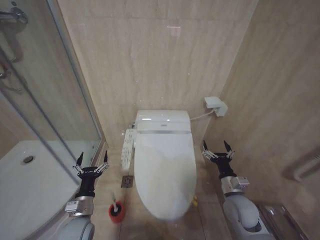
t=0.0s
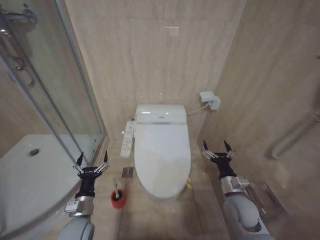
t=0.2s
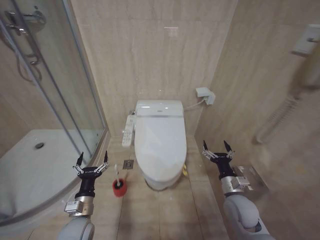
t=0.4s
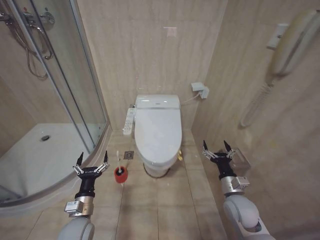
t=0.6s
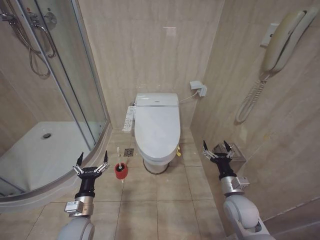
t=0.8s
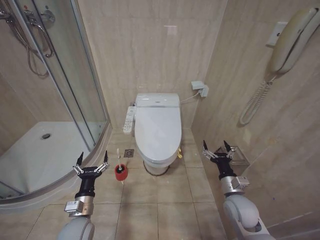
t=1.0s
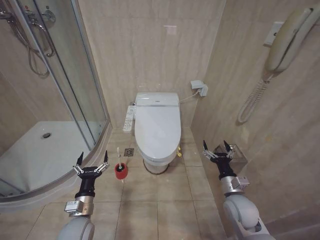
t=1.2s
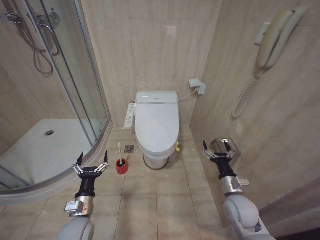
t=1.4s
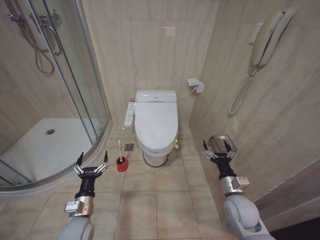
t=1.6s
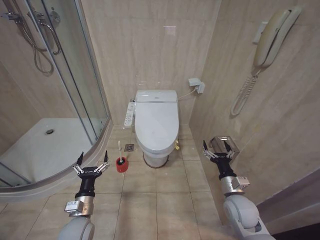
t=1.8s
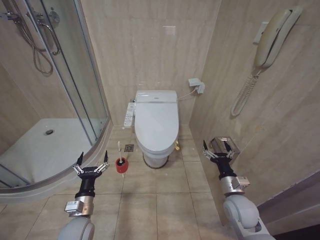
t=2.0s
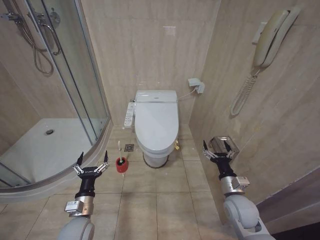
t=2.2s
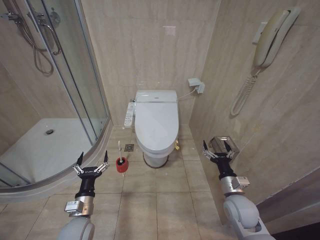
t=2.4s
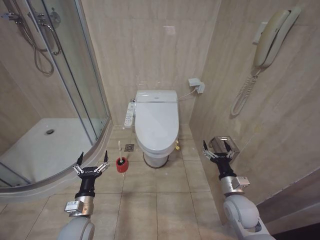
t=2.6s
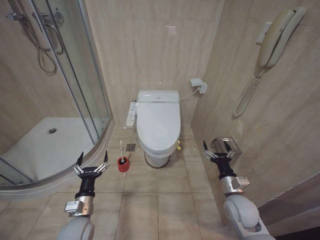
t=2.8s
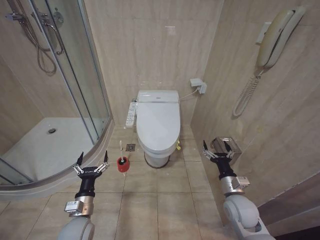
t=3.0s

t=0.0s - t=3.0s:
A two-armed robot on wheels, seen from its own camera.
Task of the whole recording: Open the toilet lid, clean the toilet bowl with a toilet brush, close the toilet lid, and flush.
t=1.6s - t=3.0s: The two grippers keep their place.

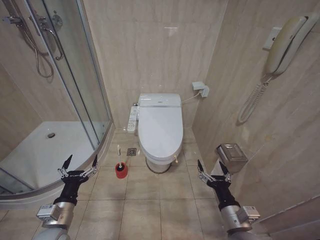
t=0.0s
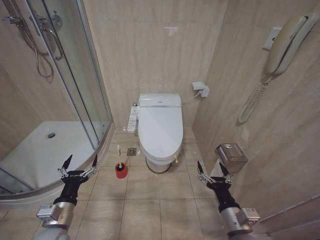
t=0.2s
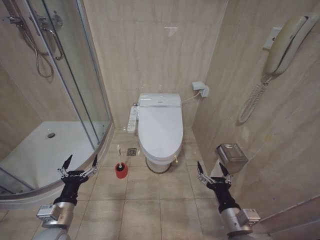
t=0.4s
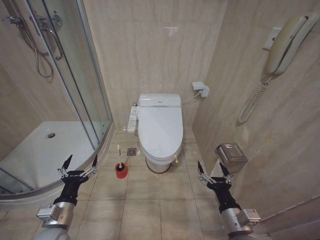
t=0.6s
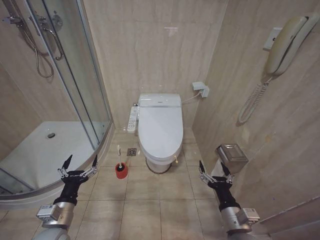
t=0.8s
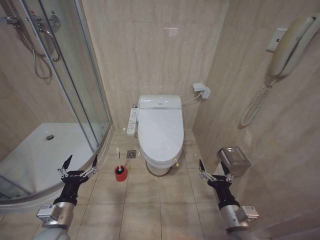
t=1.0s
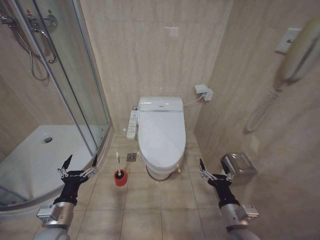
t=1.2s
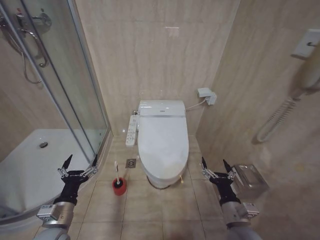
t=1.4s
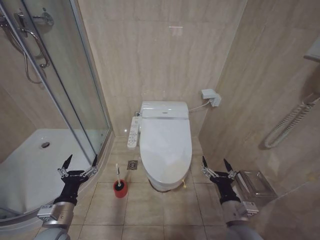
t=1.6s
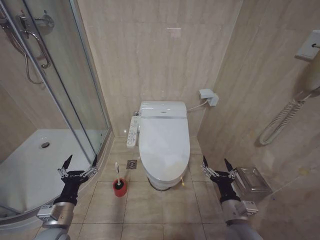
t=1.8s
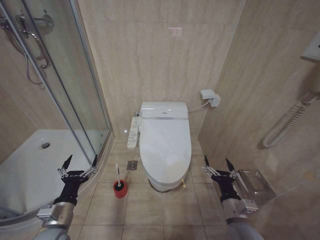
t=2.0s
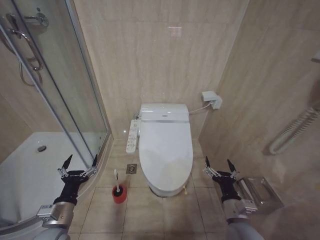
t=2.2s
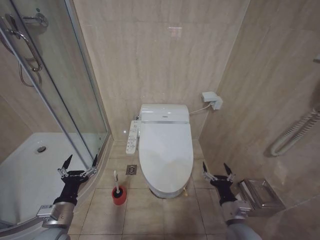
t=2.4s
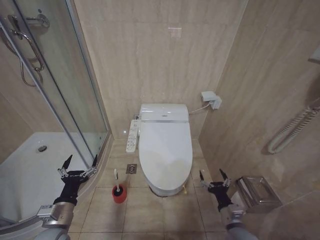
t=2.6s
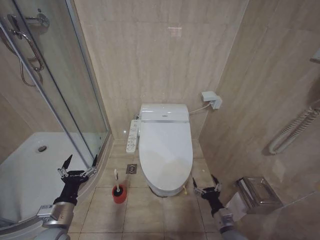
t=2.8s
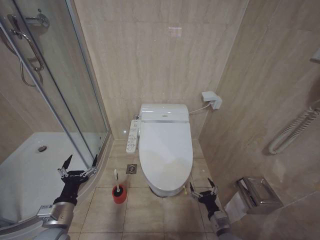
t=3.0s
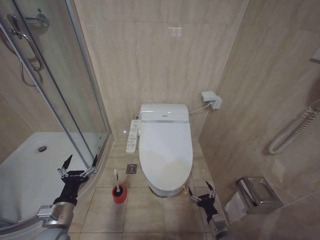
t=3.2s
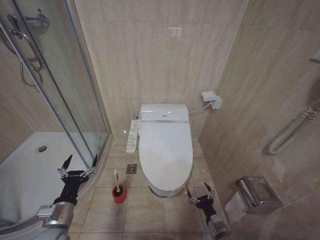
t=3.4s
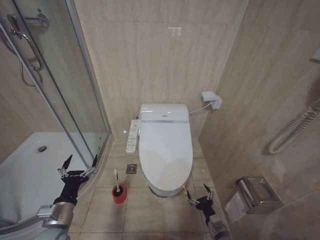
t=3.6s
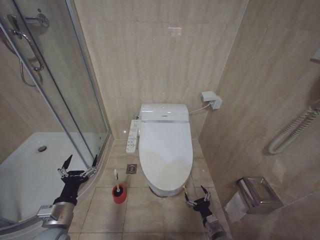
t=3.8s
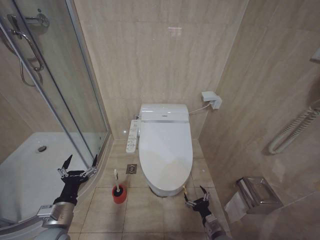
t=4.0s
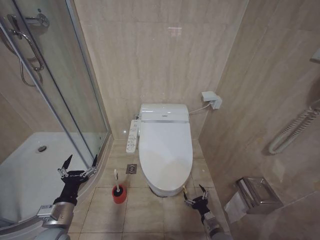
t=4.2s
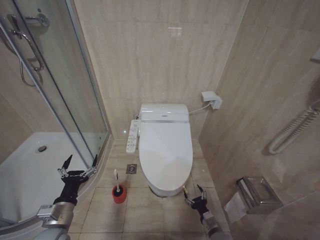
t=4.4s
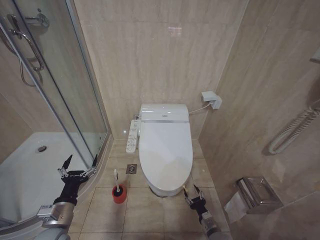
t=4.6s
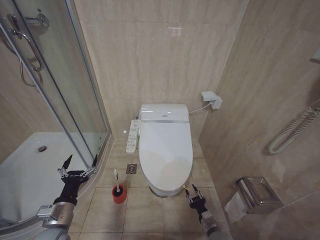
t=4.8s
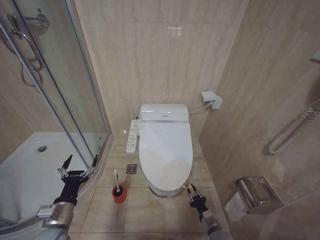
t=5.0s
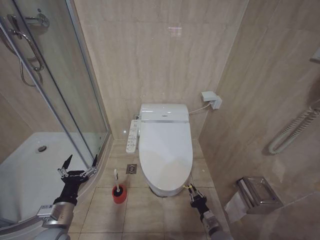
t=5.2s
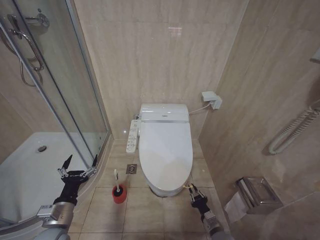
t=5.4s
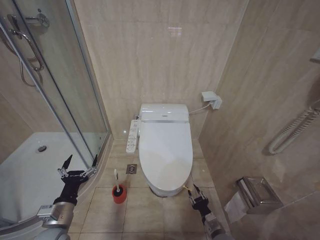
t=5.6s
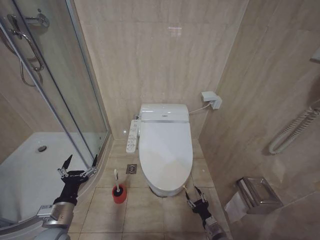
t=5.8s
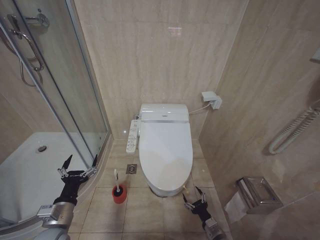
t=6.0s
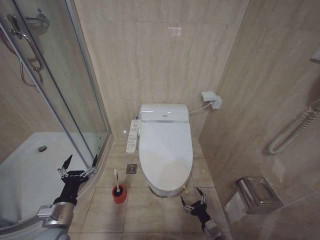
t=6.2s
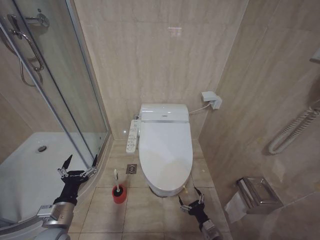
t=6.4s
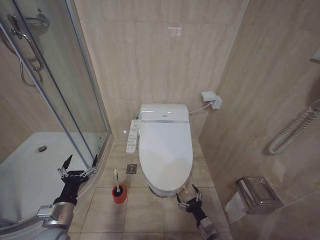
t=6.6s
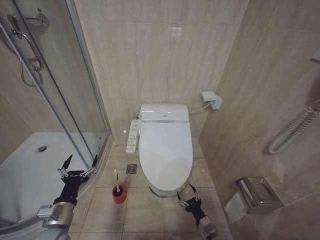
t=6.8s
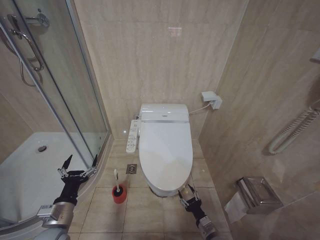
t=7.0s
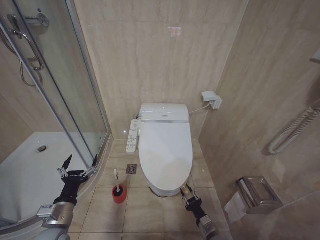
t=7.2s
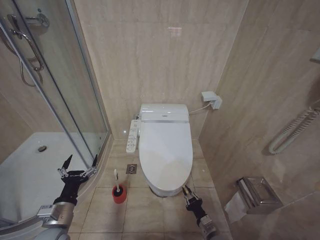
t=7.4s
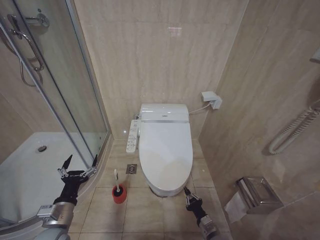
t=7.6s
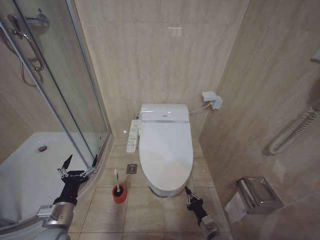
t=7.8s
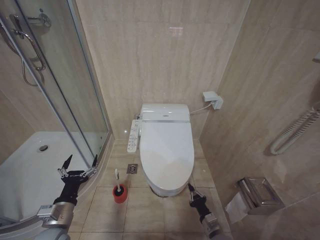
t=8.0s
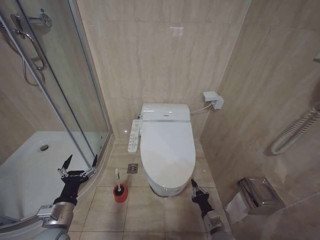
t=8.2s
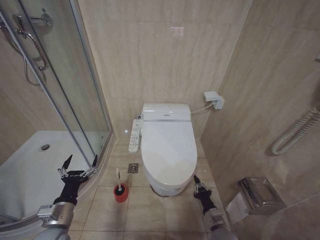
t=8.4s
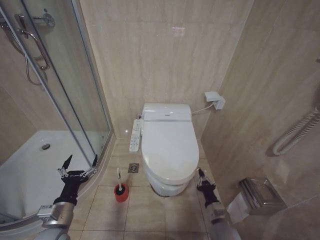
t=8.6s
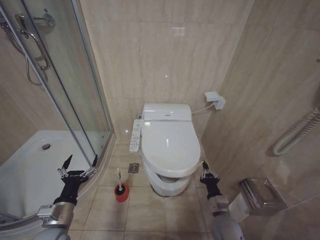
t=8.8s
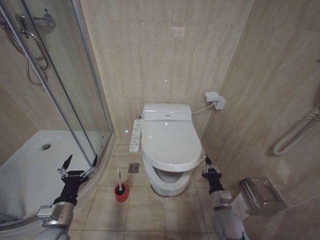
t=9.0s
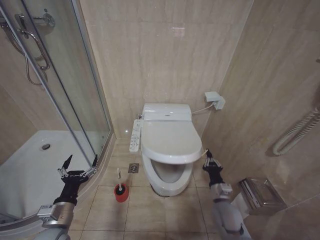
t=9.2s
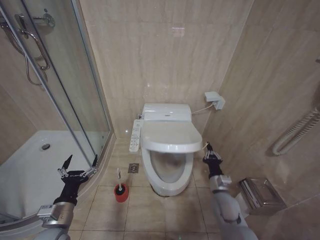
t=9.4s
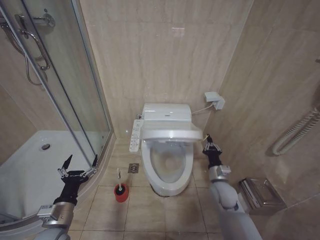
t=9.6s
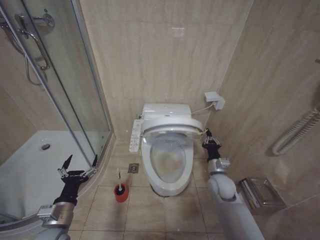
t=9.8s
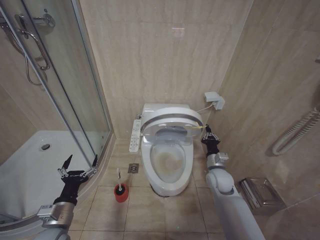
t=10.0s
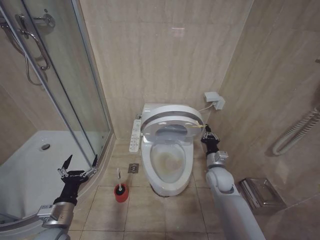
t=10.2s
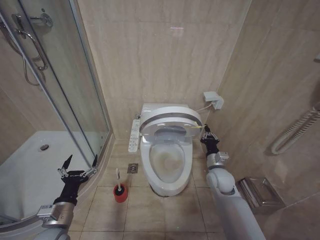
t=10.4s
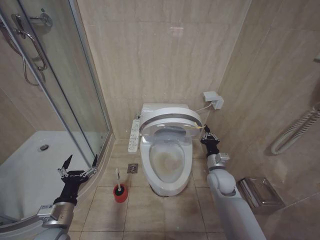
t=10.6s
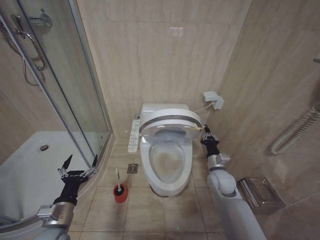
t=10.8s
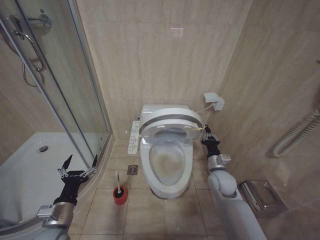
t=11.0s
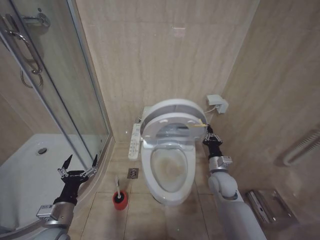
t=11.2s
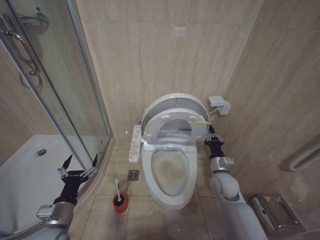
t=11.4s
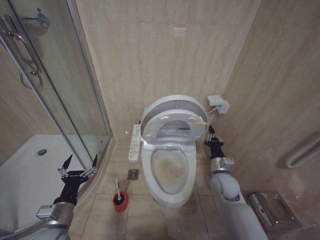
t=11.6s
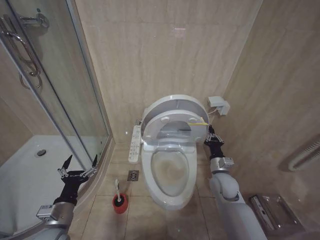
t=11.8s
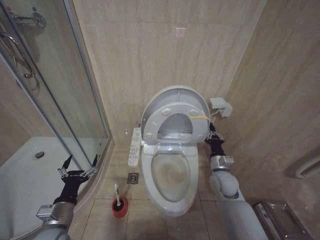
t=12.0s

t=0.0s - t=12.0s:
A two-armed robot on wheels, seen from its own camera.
Task of the whole recording: Open the toilet lid, clean the toilet bowl with a toilet brush, close the toilet lid, and flush.
t=1.6s - t=3.0s: The right gripper travels downward by some 15 cm.
t=3.0s - t=4.4s: The right gripper is displaced downward by approximately 5 cm.
t=7.6s - t=9.0s: The right gripper shifts approximately 10 cm upward.
t=9.0s - t=10.4s: The right gripper goes some 15 cm forward and upward.
t=10.4s - t=12.0s: The grippers move only a little.

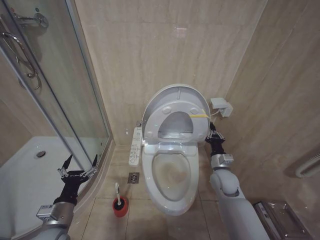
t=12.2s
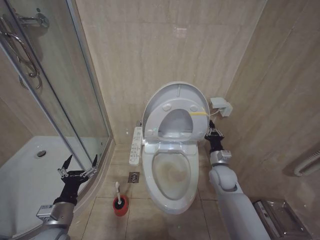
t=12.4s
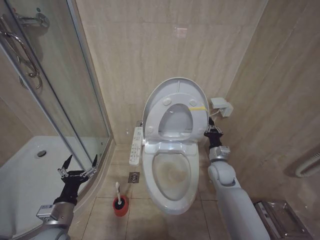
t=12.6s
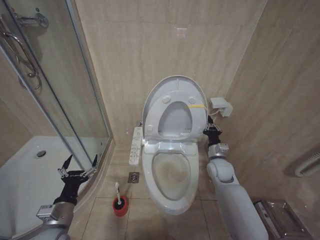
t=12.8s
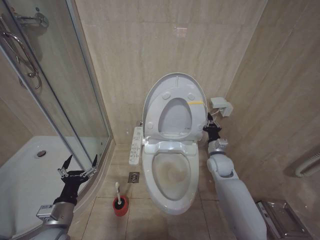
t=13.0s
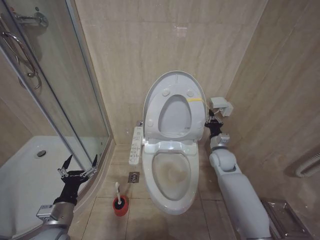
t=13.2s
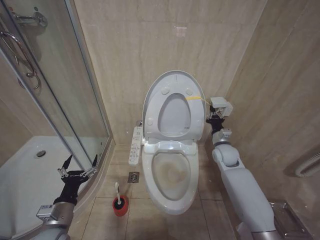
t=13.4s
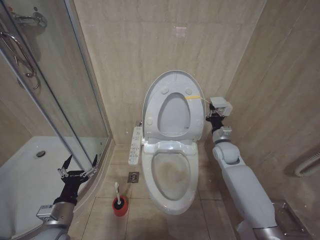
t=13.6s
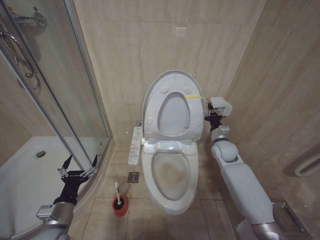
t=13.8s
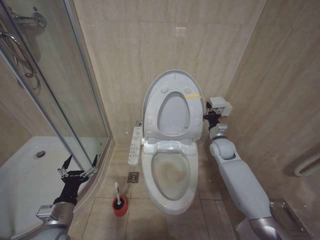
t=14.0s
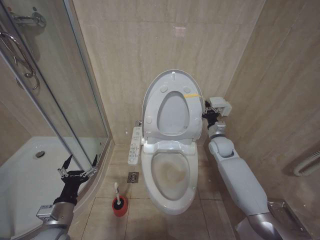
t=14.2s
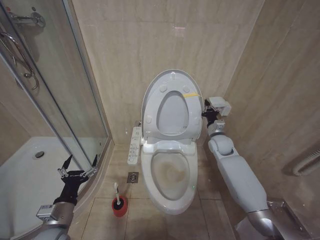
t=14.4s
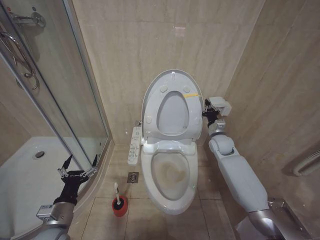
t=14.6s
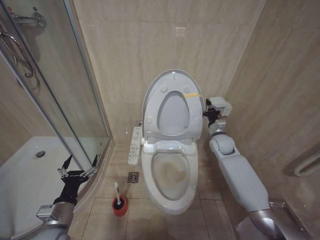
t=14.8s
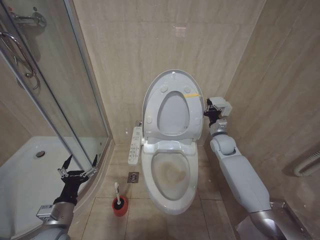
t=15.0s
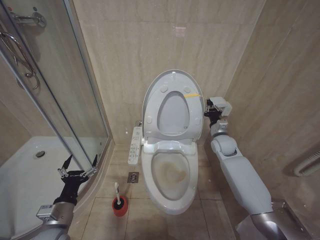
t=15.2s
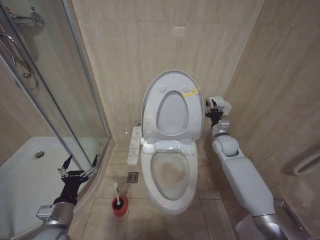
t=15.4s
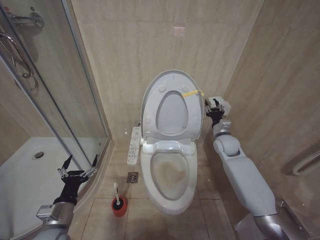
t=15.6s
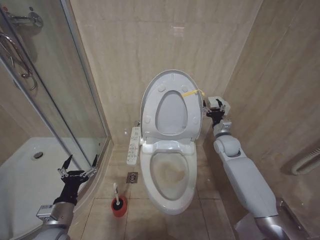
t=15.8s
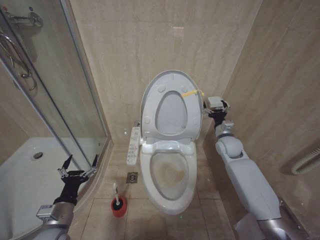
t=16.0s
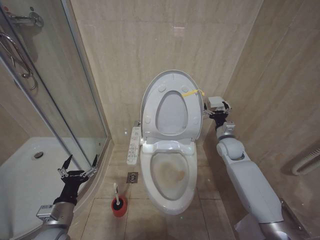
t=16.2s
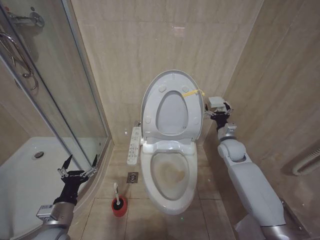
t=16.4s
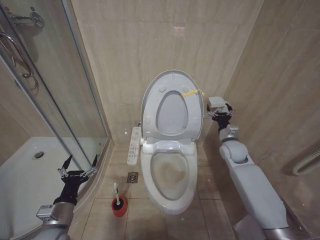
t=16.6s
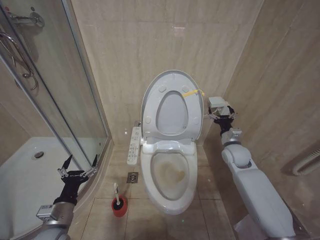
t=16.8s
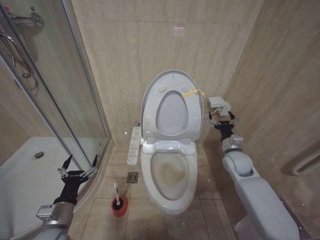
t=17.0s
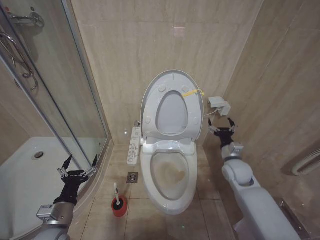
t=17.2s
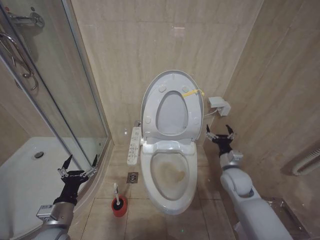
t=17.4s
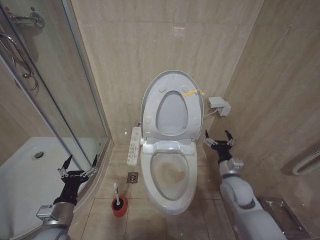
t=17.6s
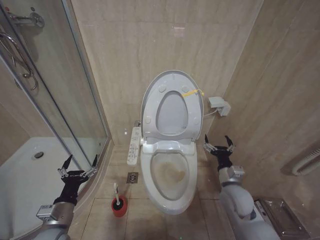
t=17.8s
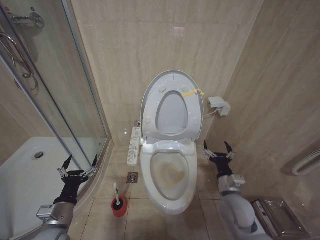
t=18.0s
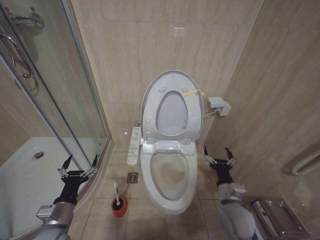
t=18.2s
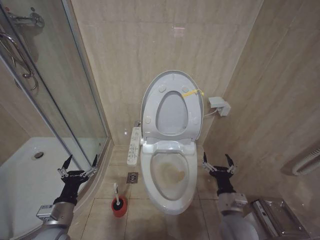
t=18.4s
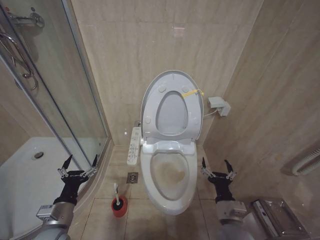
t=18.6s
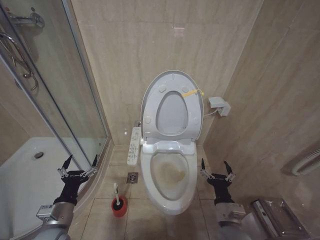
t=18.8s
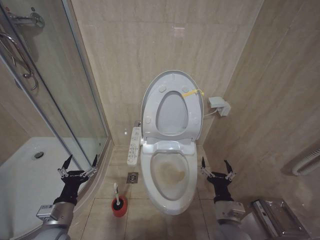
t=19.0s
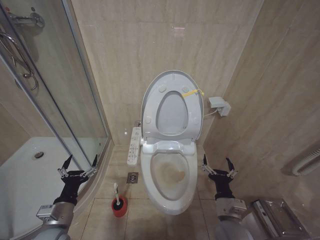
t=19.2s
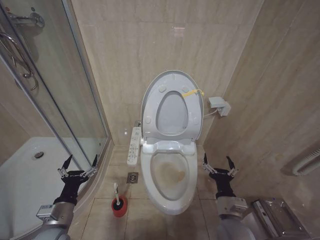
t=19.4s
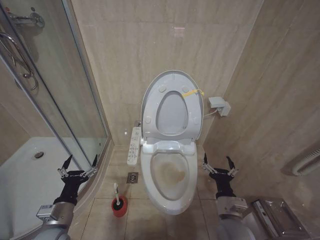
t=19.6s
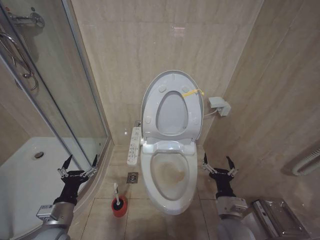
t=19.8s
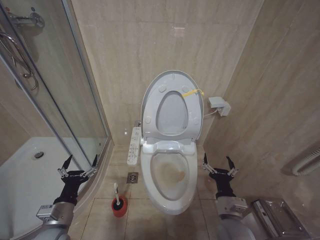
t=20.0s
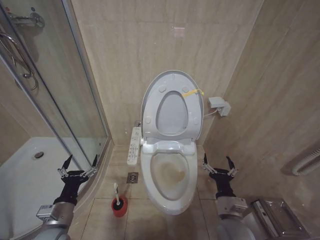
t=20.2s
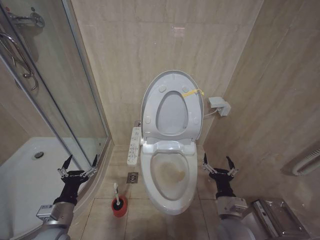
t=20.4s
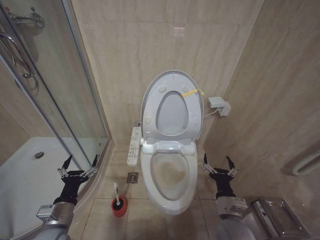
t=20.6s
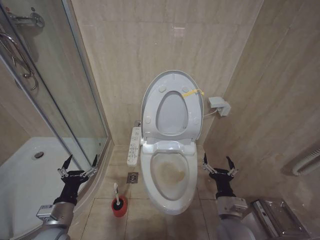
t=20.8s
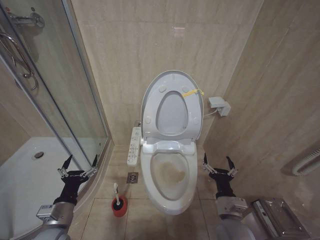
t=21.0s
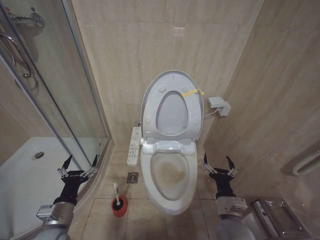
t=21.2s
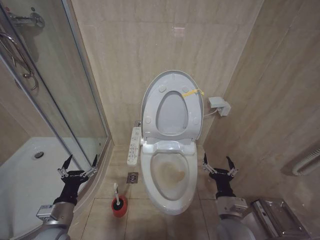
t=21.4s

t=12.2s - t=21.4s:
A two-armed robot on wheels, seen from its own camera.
Task of the whole recording: Open the toilet lid, clean the toilet bowl with a toilet brush, close the toilet lid, and flush.
t=12.2s - t=13.8s: The right gripper moves forward and upward, roughly 10 cm.
t=13.8s - t=15.2s: The grippers stay close to where they were, moving slightly.
t=15.2s - t=16.8s: The right gripper ends up about 5 cm from where it was, and opens up.
t=16.8s - t=18.4s: The right gripper moves backward, downward and to the left, roughly 25 cm.
t=19.8s - t=21.4s: Both grippers stay about where they are.
